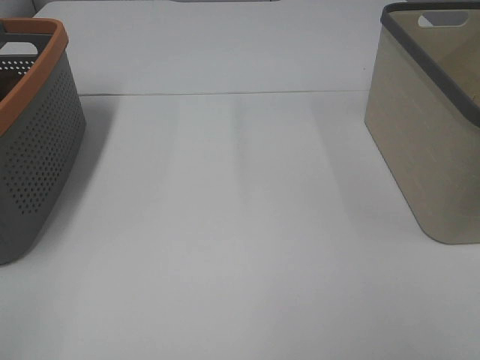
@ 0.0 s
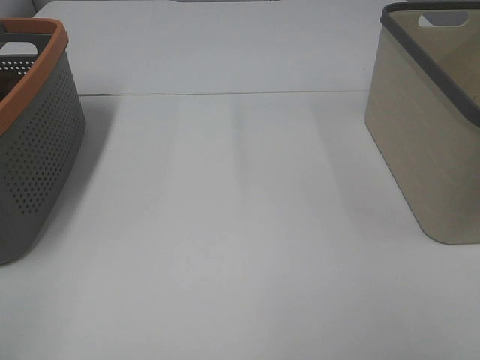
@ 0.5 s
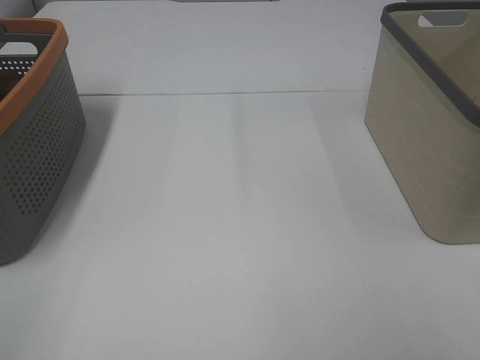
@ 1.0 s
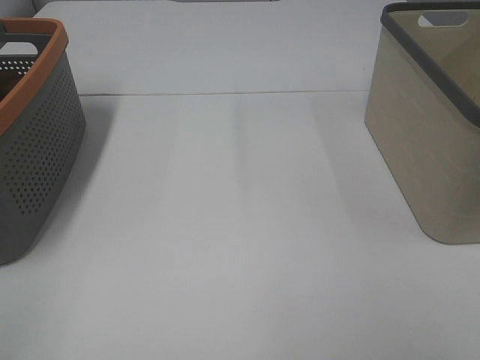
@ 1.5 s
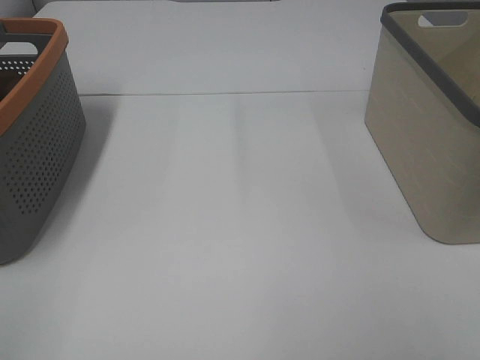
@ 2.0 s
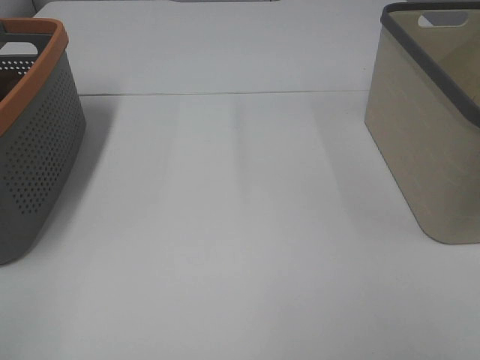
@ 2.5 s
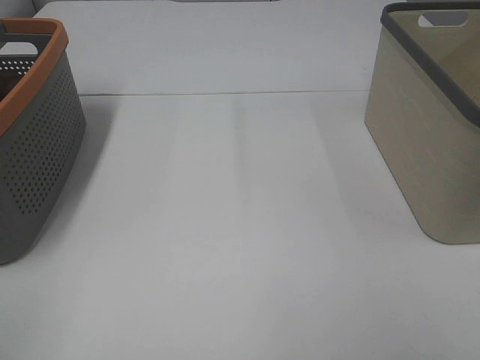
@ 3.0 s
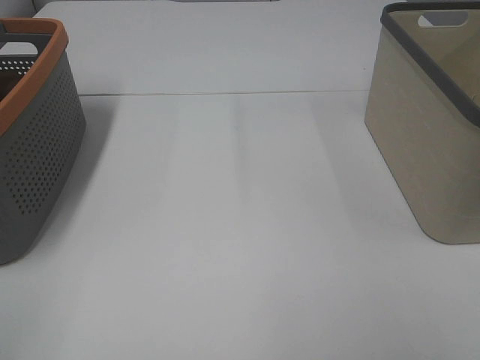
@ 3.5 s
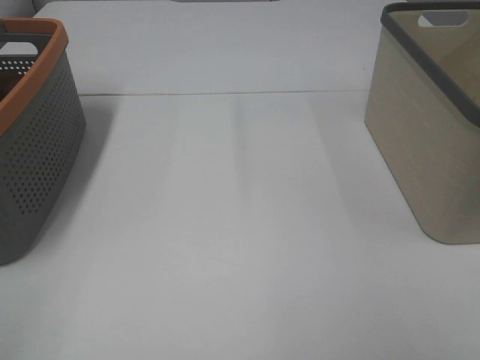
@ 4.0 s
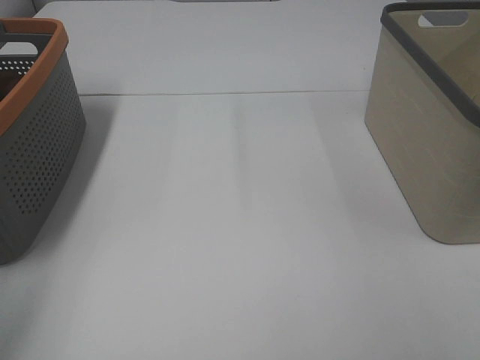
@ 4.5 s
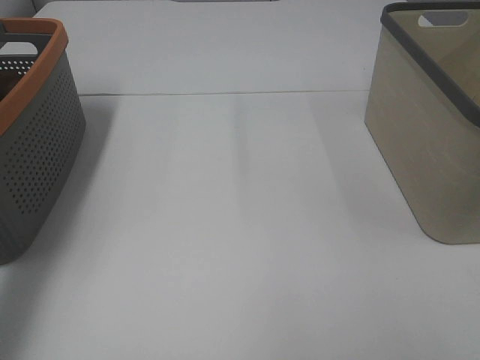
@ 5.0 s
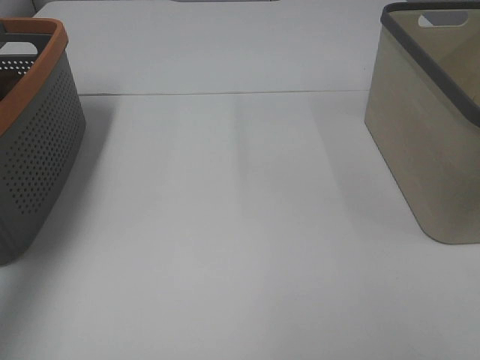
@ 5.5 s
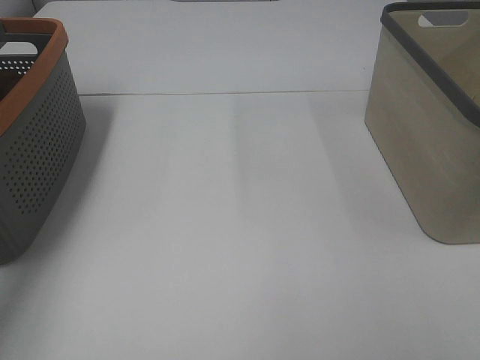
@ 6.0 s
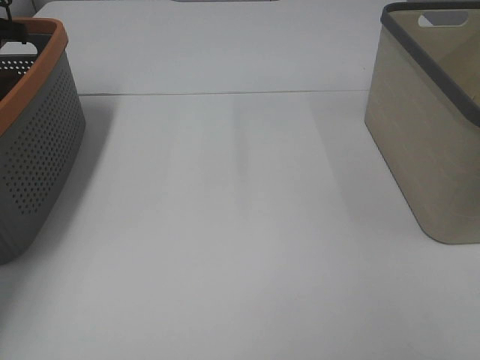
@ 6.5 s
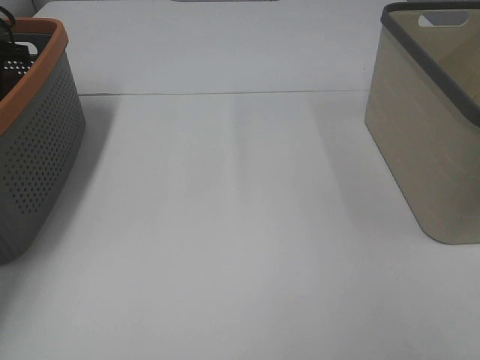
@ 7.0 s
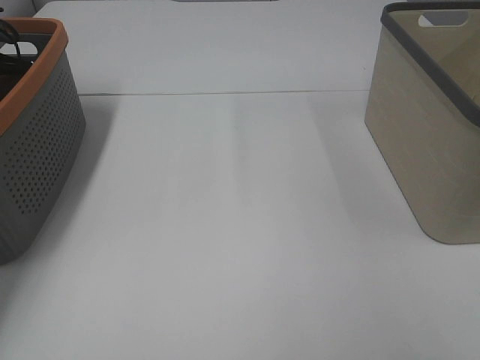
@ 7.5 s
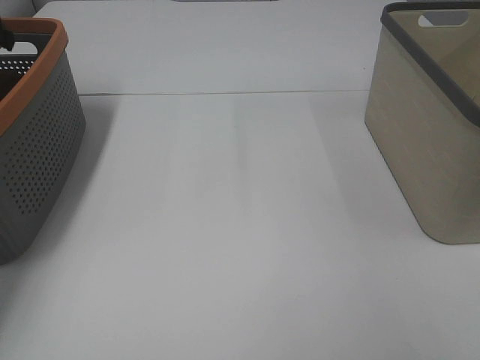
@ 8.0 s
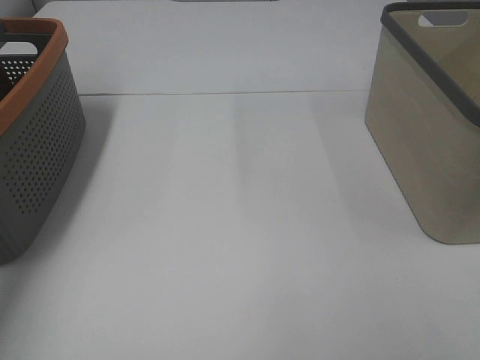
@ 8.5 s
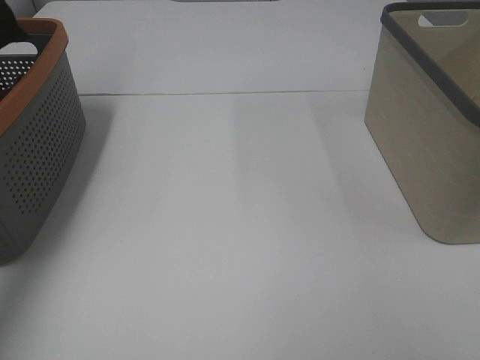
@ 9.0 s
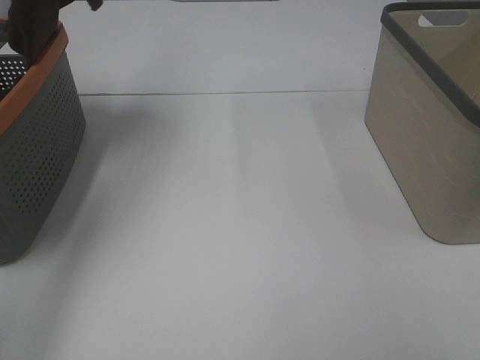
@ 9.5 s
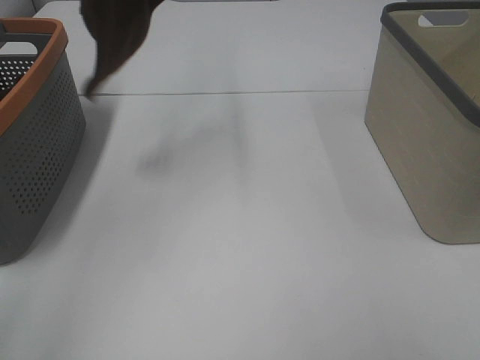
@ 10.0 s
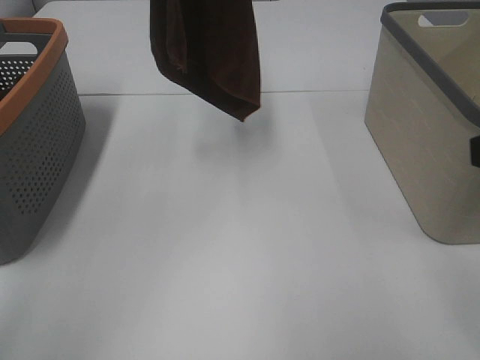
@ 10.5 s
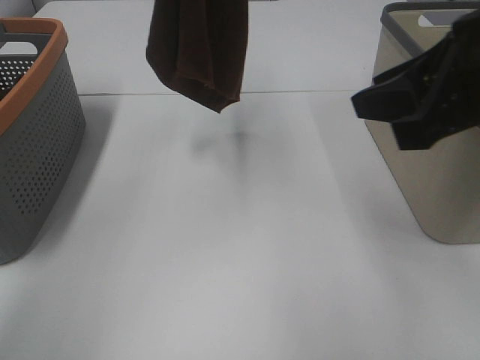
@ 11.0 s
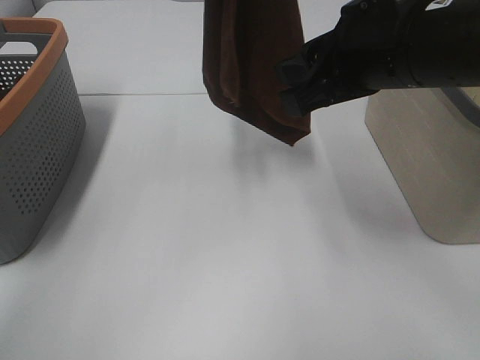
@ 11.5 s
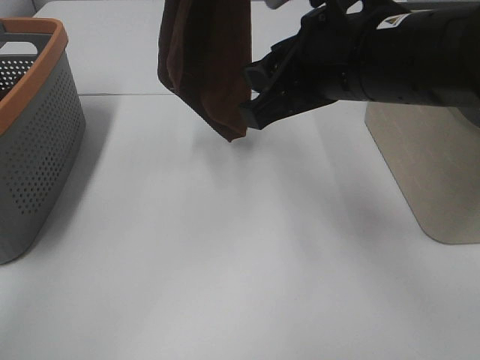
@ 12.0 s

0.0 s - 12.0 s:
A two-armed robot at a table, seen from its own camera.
Task of the whole recording: Remove the towel and place it.
0.0 s - 2.0 s: Neither gripper changes place.
4.0 s - 6.0 s: The left gripper heads forward, covering about 40 cm.
8.0 s - 10.0 s: The left gripper is displaced upward, to the right and backward by some 35 cm.
10.0 s - 12.0 s: The left gripper is displaced to the right and downward by approximately 10 cm. Meanwhile the right gripper moves forward and to the left, about 30 cm.

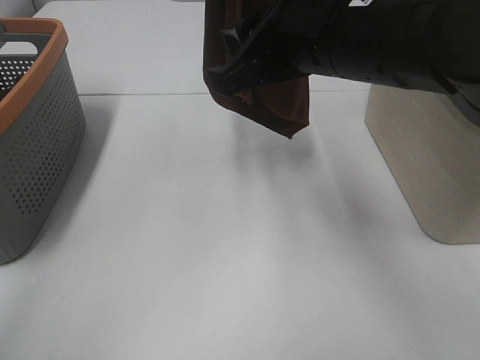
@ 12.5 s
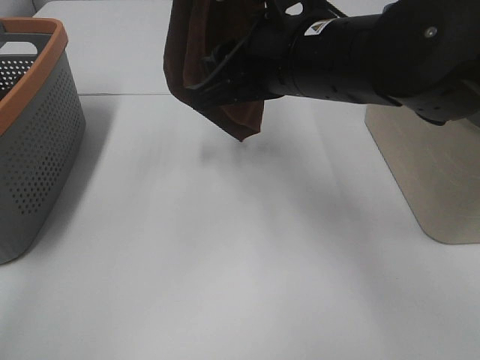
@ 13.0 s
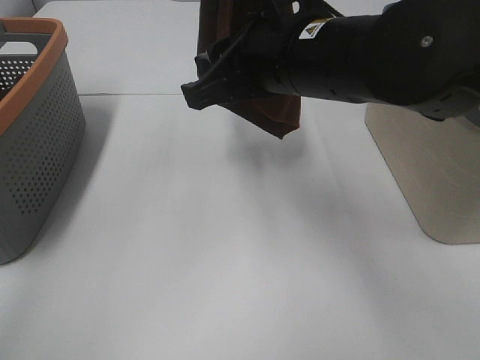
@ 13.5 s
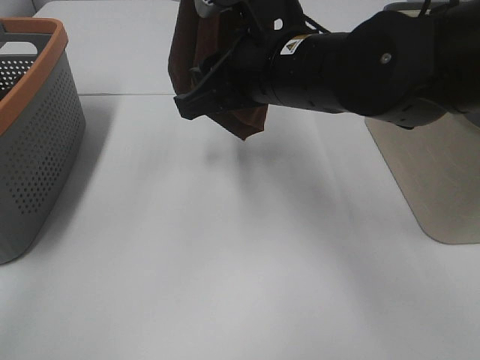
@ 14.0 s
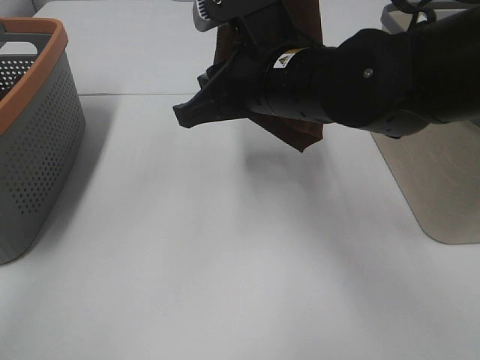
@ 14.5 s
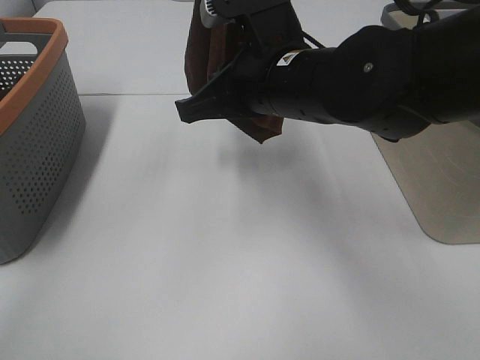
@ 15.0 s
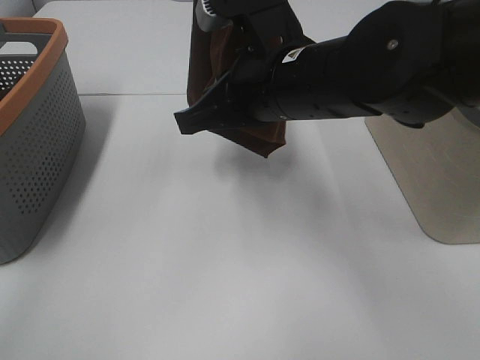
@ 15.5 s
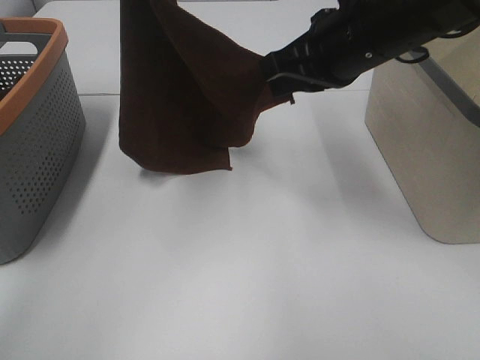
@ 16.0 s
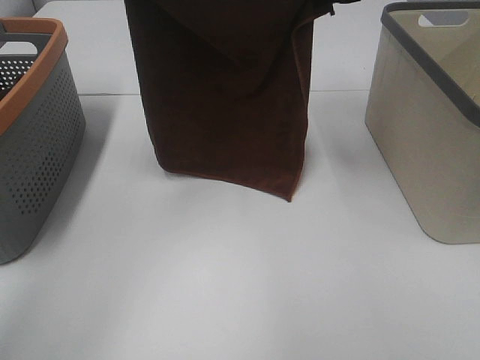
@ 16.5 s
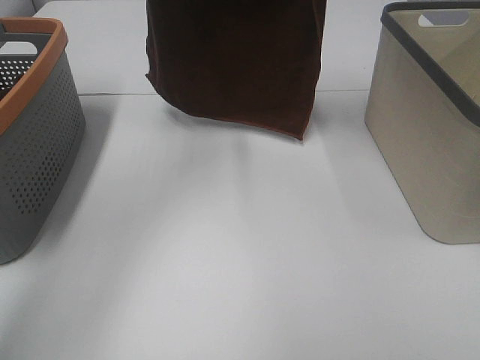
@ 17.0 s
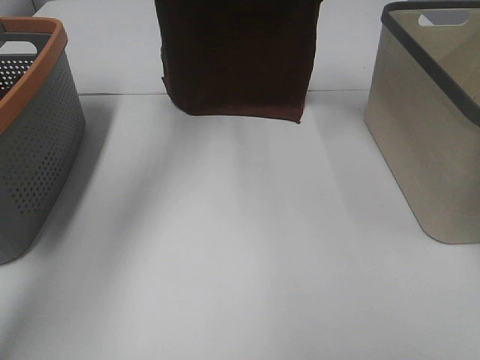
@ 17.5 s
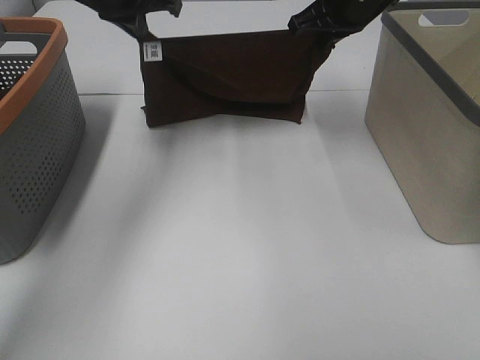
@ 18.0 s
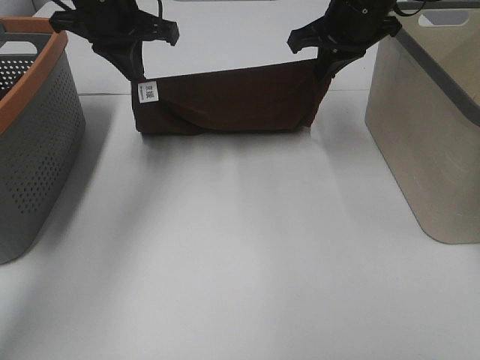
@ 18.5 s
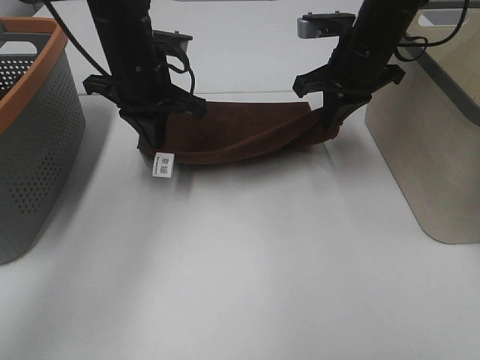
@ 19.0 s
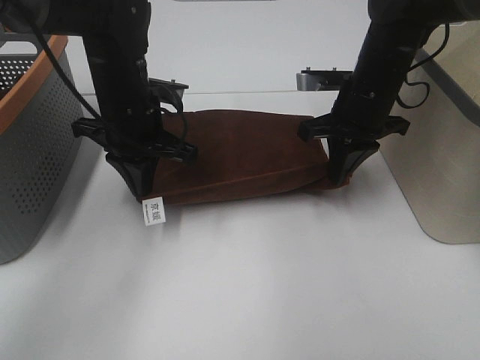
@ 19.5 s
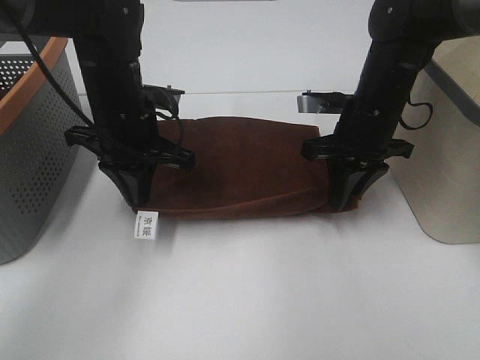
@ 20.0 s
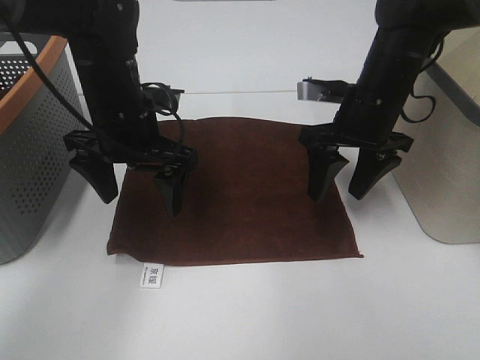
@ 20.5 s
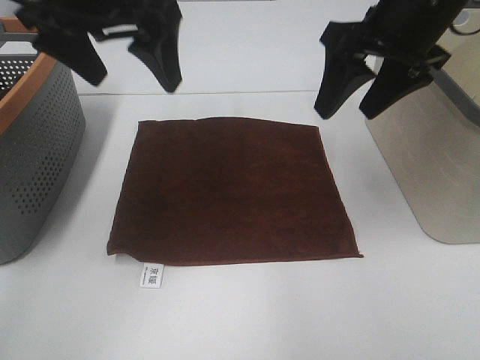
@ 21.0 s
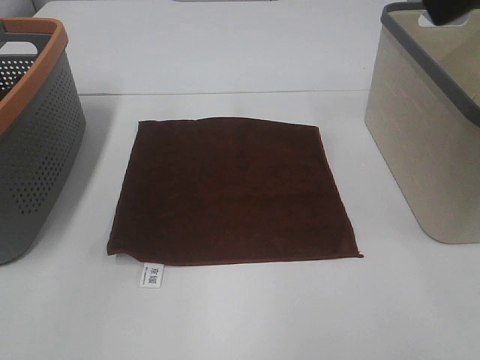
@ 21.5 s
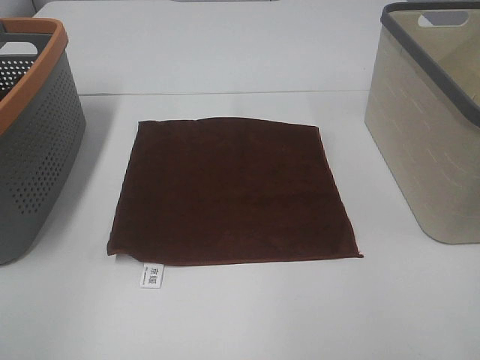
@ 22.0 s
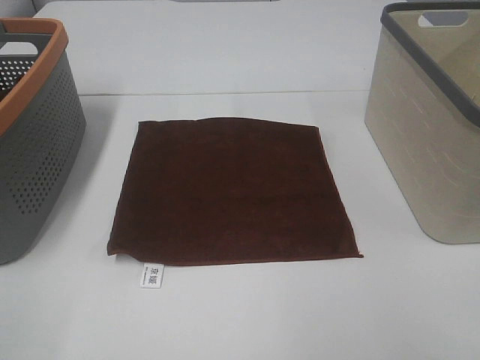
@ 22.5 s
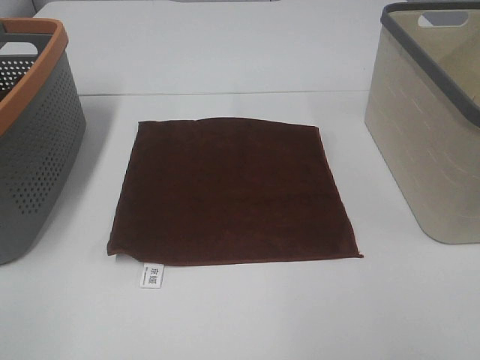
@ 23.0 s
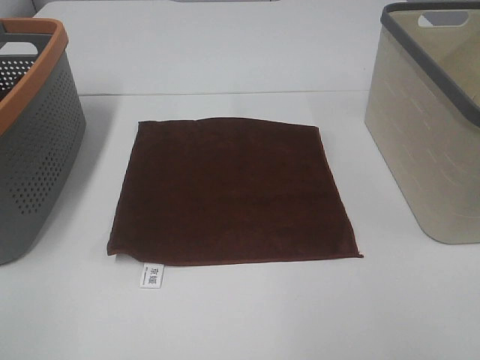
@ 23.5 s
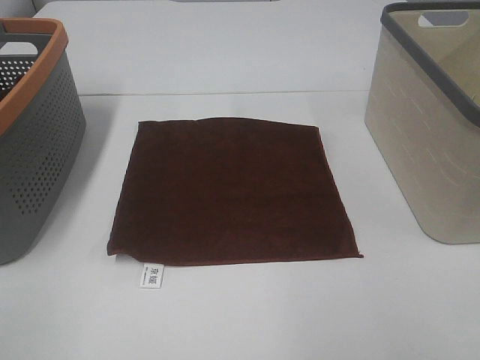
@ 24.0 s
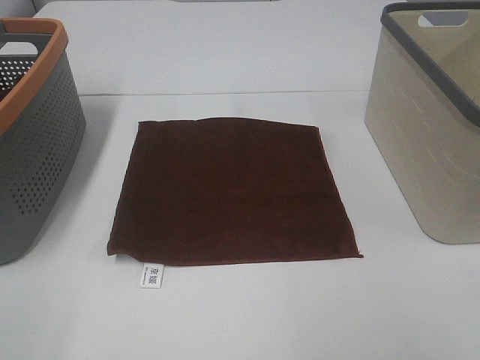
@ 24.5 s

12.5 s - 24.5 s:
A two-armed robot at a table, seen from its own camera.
Task of the whole recording: Remove the towel and place it.
Step, 13.5 s - 16.0 s: Left hand: spread the brown towel flat on the table.
Step, 13.5 s - 16.0 s: Right hand: spread the brown towel flat on the table.
12.5 s - 14.5 s: The right gripper shifts approximately 5 cm downward.
14.5 s - 16.5 s: The left gripper travels downward and to the left by about 10 cm, while the right gripper is displaced to the right, upward and forward by roughly 15 cm.
16.5 s - 18.5 s: The left gripper moves downward, approximately 15 cm. Meanwhile the right gripper heads downward and forward, covering some 10 cm.
18.5 s - 20.5 s: Both grippers travel together backward and downward, about 10 cm. The left gripper opens up. The right gripper opens its fingers.
20.5 s - 22.5 s: The left gripper goes roughly 40 cm backward and to the left. Meanwhile the right gripper heads backward, covering roughly 35 cm.

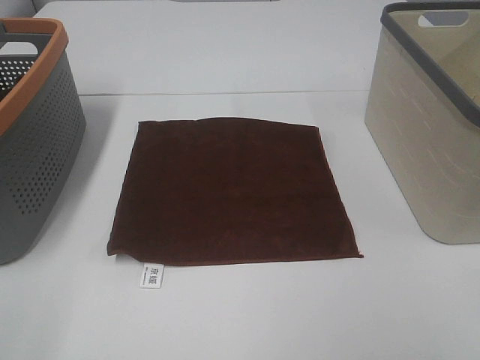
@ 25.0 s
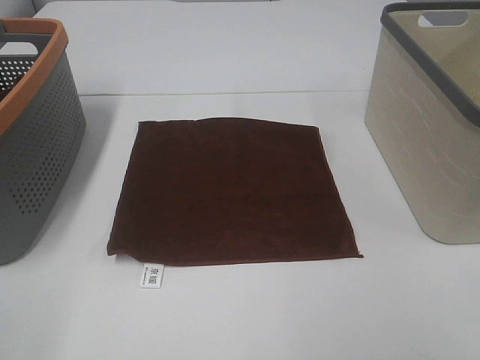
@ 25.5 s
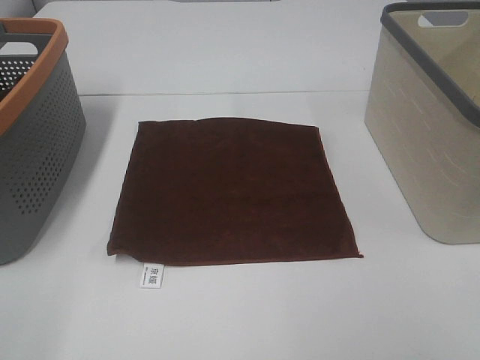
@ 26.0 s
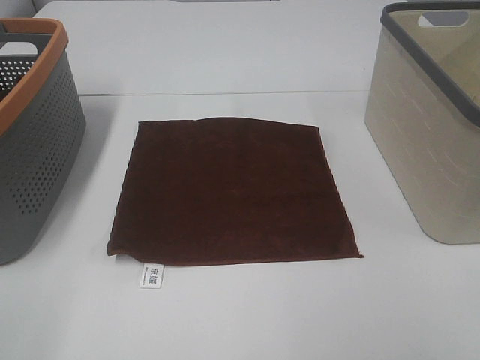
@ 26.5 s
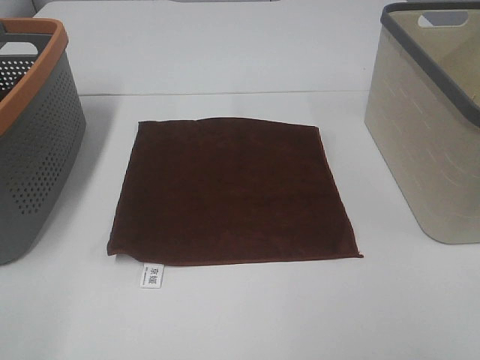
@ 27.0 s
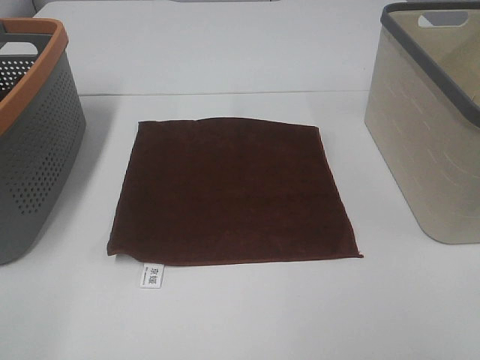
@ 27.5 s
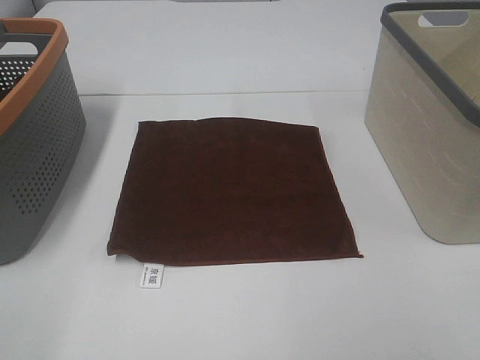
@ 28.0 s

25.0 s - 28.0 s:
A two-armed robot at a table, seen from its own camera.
Task of the whole recording: Remove the towel and place it.
26.5 s - 28.0 s: Neither gripper changes place.
